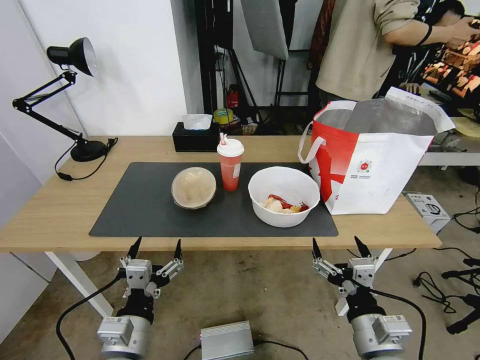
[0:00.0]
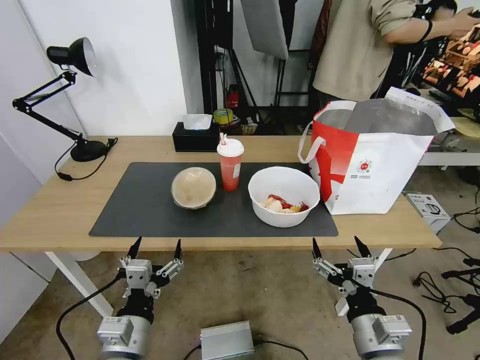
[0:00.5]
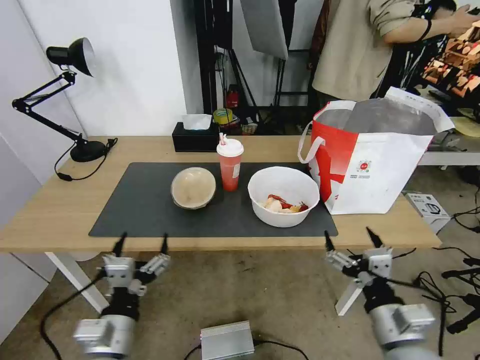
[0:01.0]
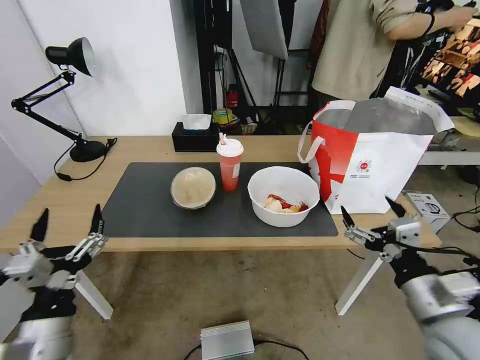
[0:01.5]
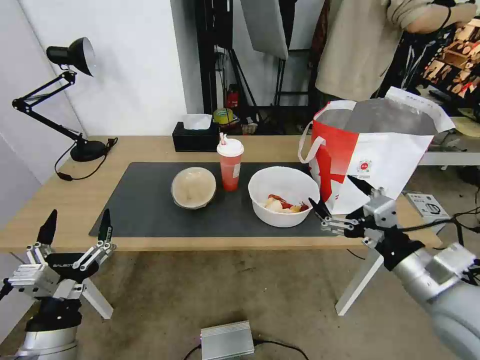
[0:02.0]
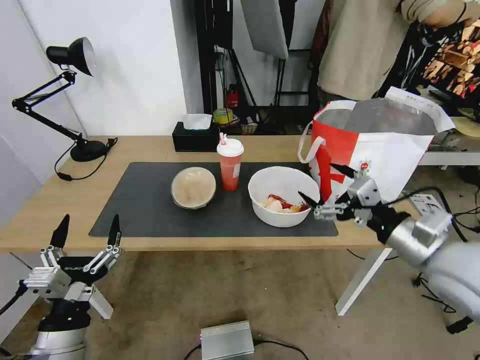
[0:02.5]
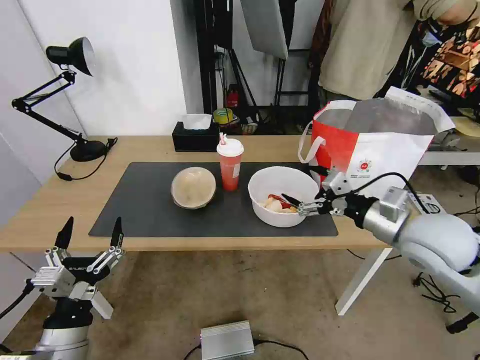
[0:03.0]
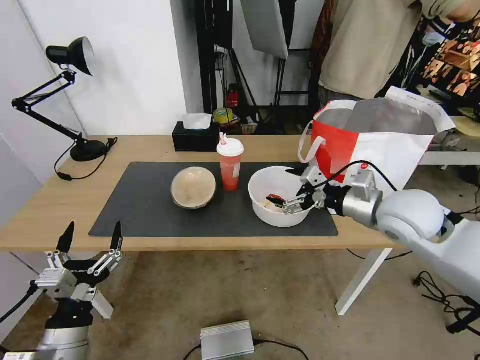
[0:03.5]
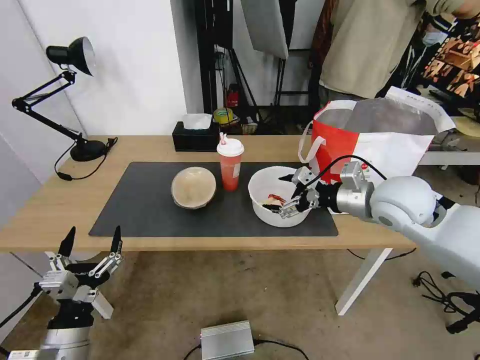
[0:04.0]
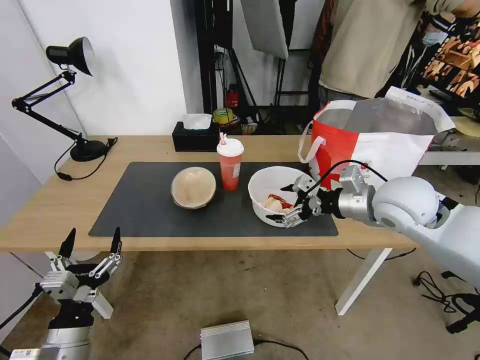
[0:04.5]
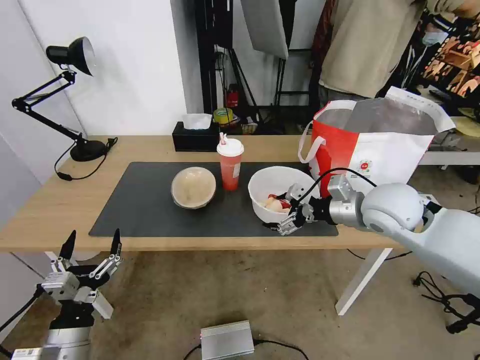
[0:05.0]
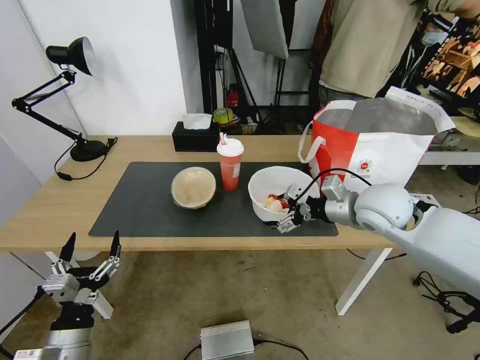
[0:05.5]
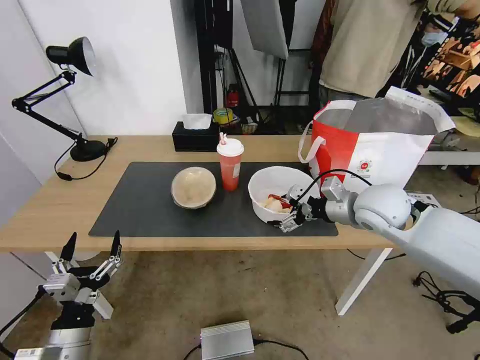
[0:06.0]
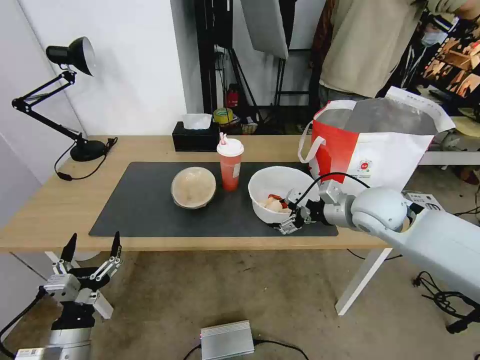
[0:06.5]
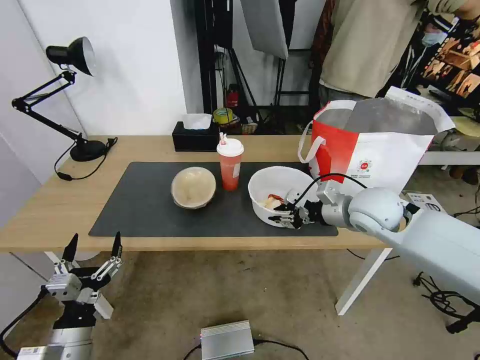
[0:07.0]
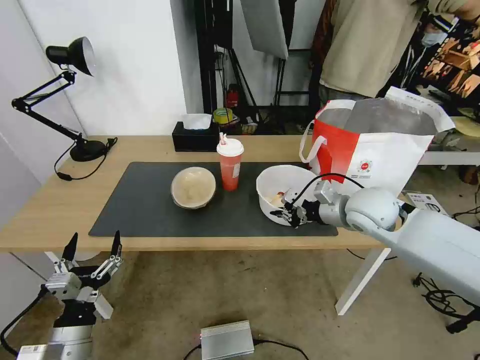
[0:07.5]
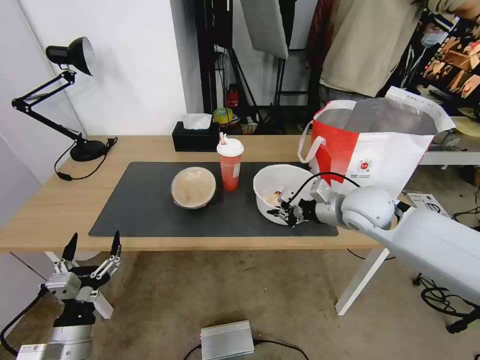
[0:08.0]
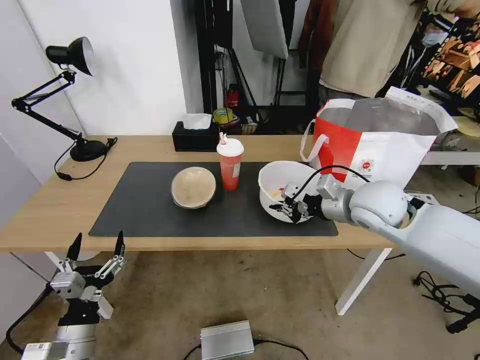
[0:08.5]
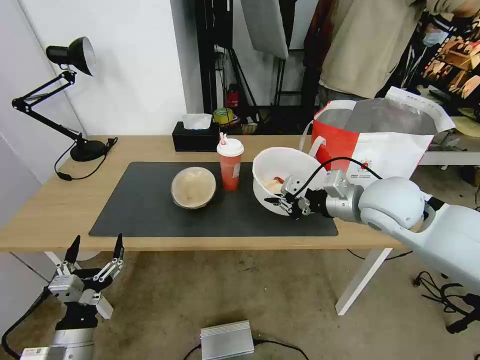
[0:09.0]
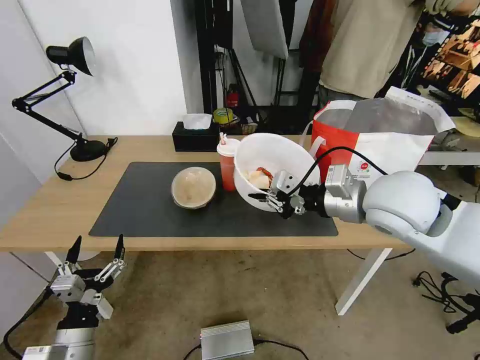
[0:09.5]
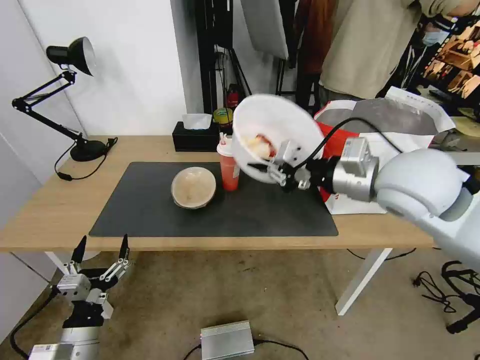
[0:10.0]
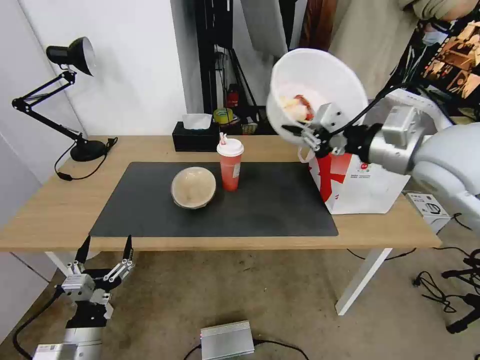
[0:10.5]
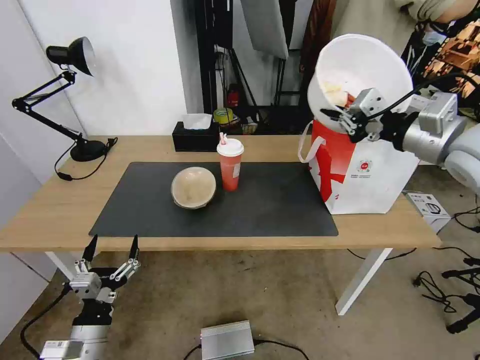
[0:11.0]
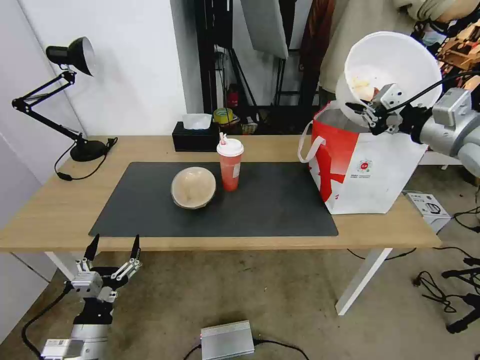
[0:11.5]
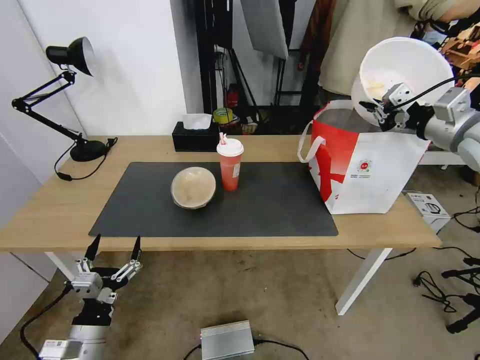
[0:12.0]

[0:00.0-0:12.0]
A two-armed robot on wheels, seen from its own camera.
Task of the whole recording: Pick up the trash from the table and place it into the takeout bag.
0:02.0 to 0:04.0: The right gripper goes some 20 cm forward, while the left gripper goes approximately 5 cm downward.
0:04.0 to 0:06.0: The grippers stay close to where they were, moving slightly.
0:06.0 to 0:08.0: The right gripper closes up.
0:08.0 to 0:10.0: The right gripper moves upward and backward, approximately 15 cm.
0:10.0 to 0:12.0: The right gripper travels to the right and forward by approximately 20 cm.

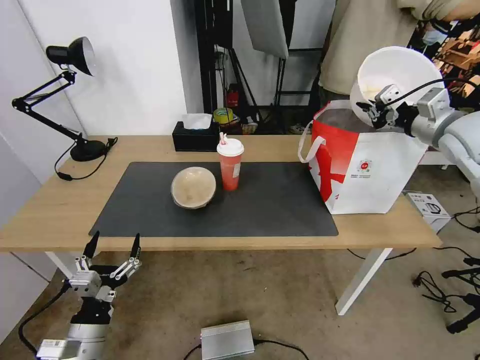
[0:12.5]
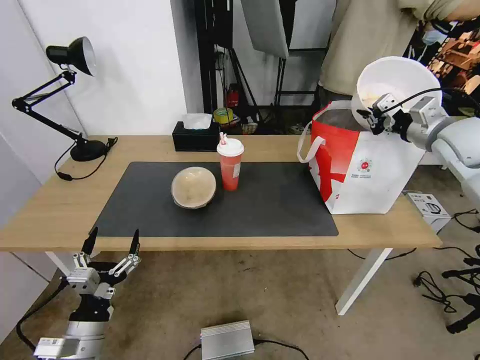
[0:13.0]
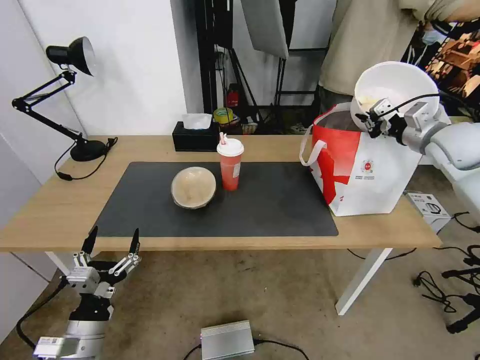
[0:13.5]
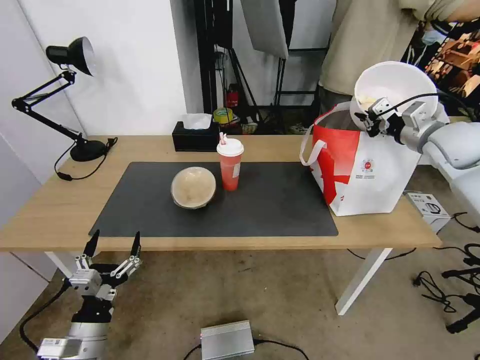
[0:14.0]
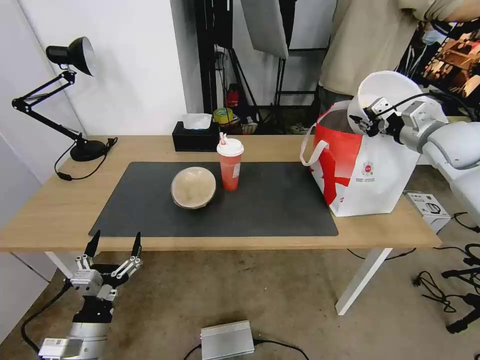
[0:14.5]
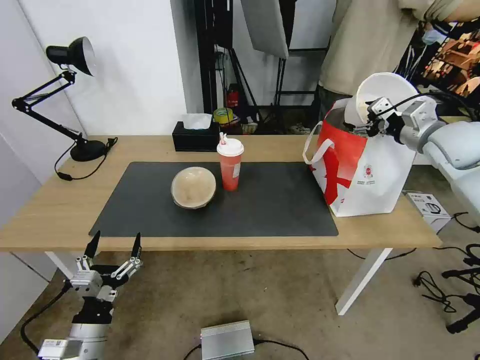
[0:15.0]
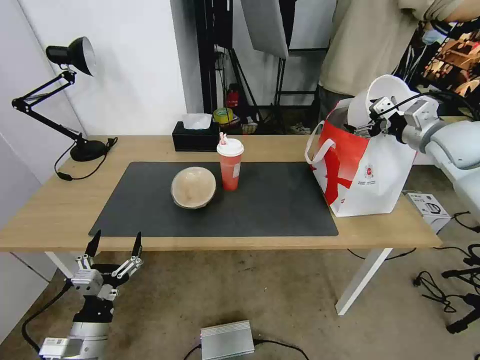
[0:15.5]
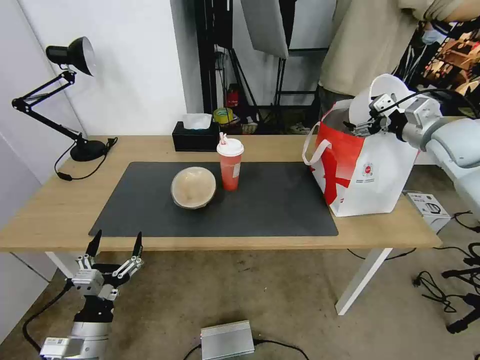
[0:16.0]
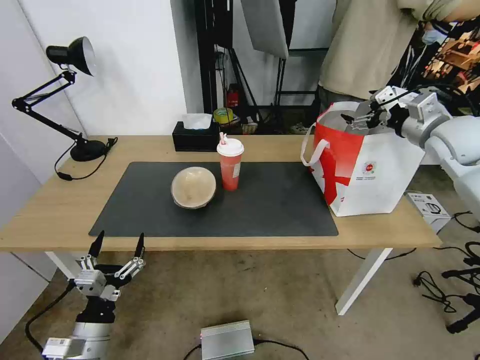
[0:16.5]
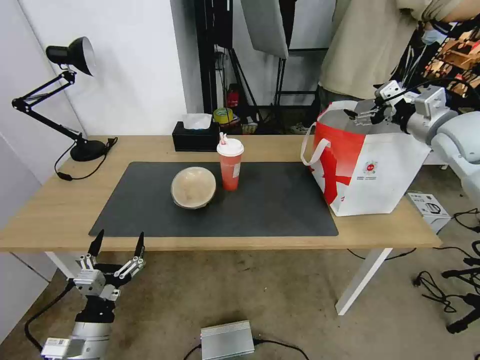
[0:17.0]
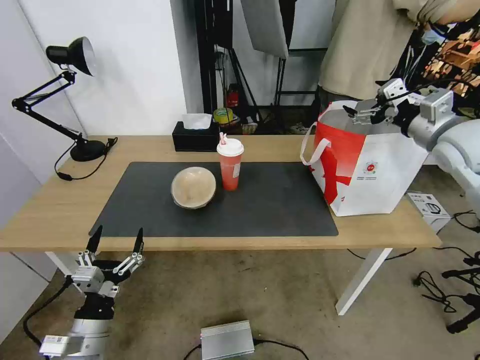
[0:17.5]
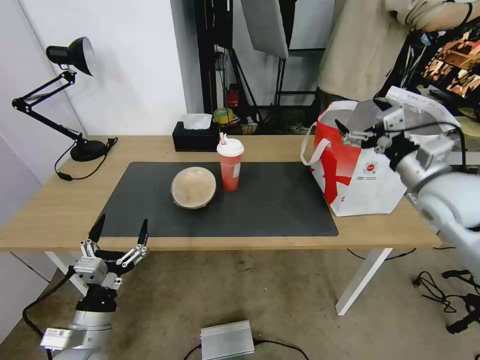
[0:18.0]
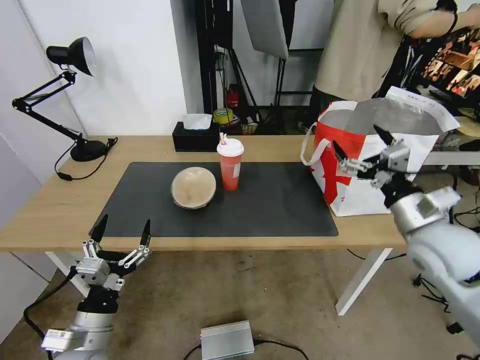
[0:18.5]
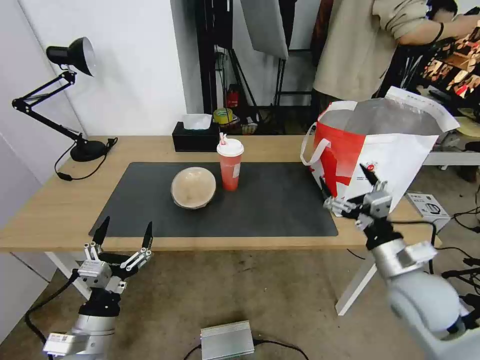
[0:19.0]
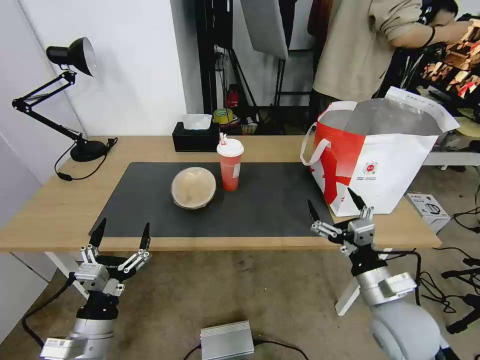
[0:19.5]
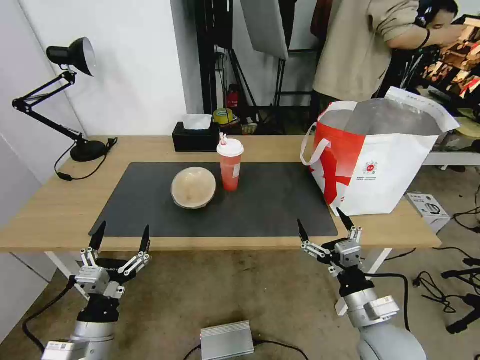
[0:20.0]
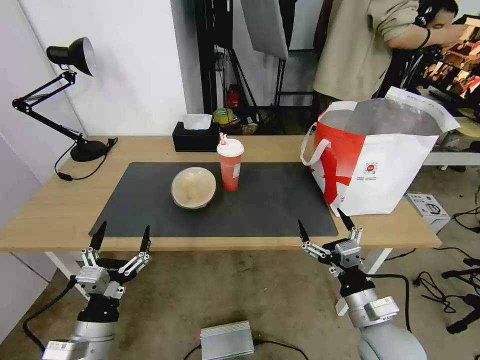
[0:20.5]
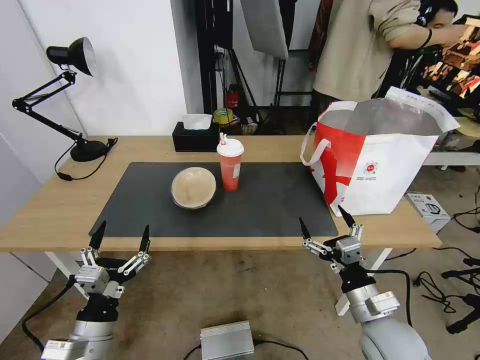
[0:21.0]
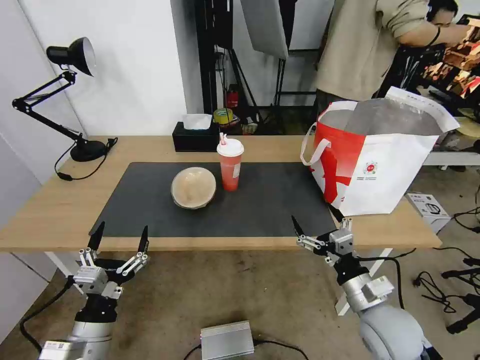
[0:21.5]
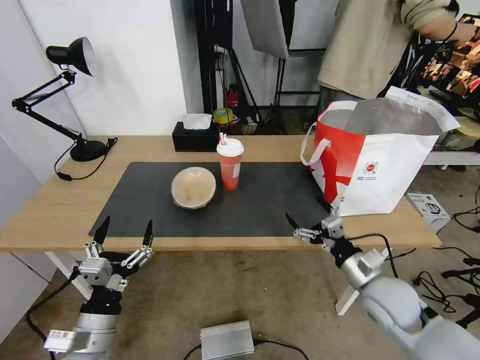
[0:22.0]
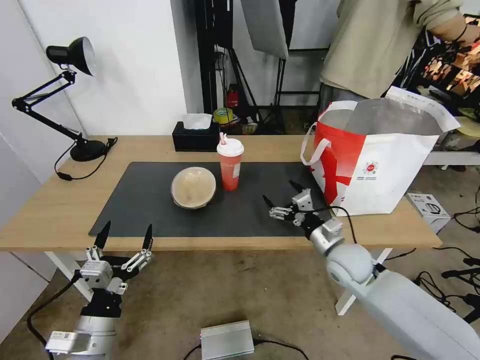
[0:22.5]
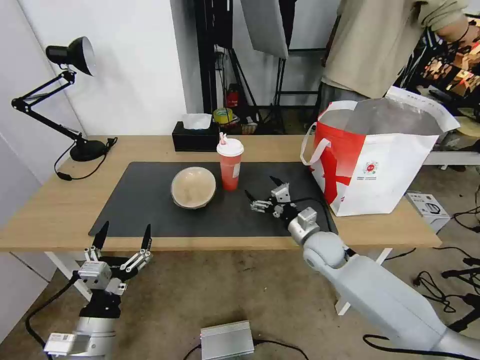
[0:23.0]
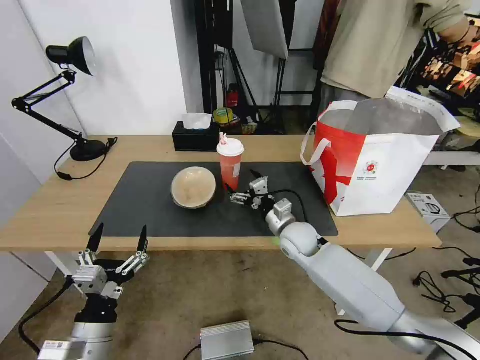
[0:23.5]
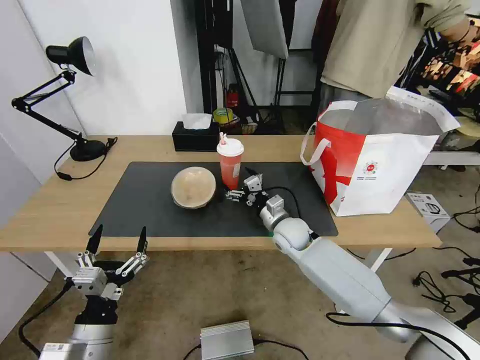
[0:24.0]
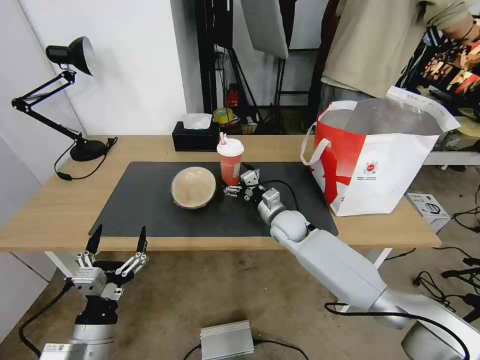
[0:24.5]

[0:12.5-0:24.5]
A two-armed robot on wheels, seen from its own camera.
Task of the whole recording: Pick up the trash from the table and place it into the takeout bag.
0:12.5 to 0:14.5: The grippers make only small movements.
0:14.5 to 0:16.5: The right gripper opens its fingers.
0:16.5 to 0:18.5: The right gripper heads backward, downward and to the left, covering some 20 cm.
0:18.5 to 0:20.5: The right gripper shifts approximately 20 cm downward, backward and to the left.
0:20.5 to 0:22.5: The right gripper travels forward by some 15 cm.
0:22.5 to 0:24.5: The right gripper goes some 15 cm to the left and forward.

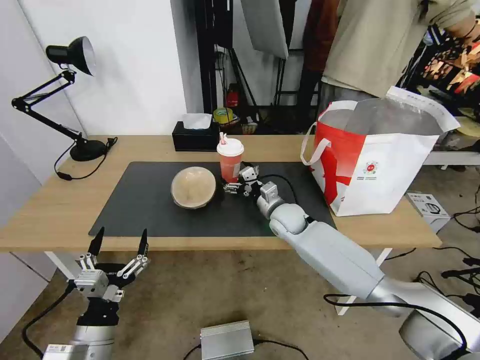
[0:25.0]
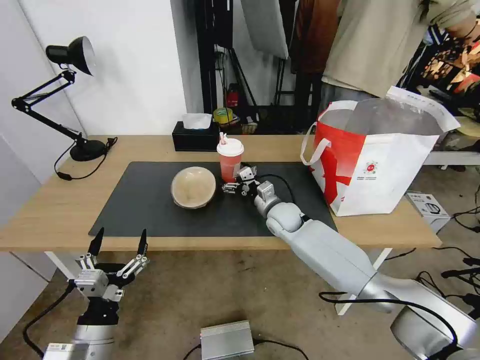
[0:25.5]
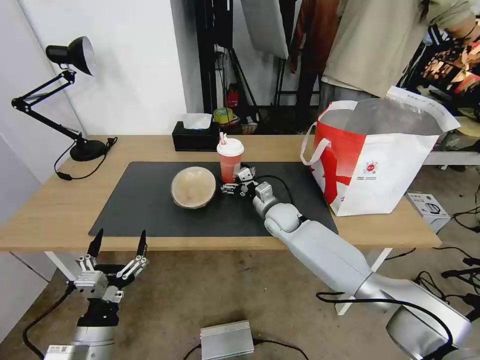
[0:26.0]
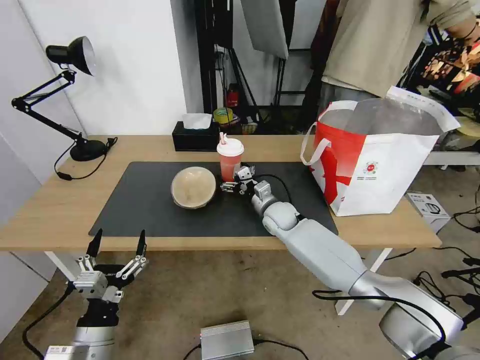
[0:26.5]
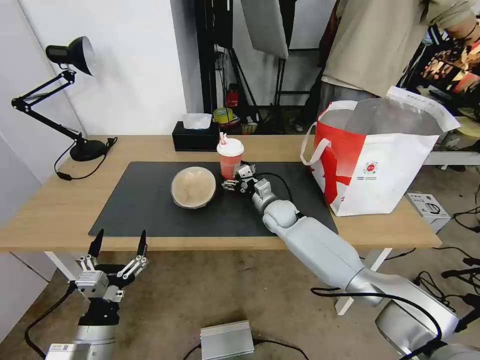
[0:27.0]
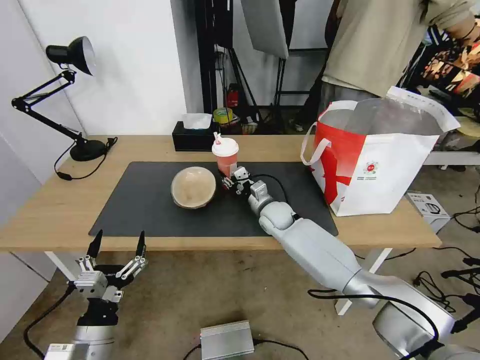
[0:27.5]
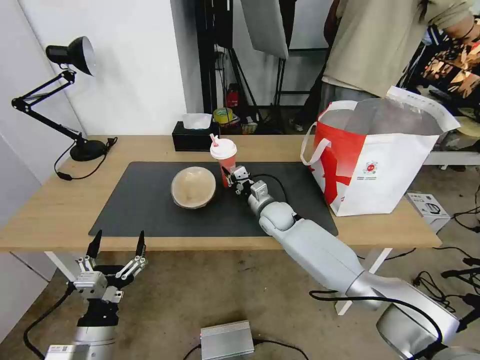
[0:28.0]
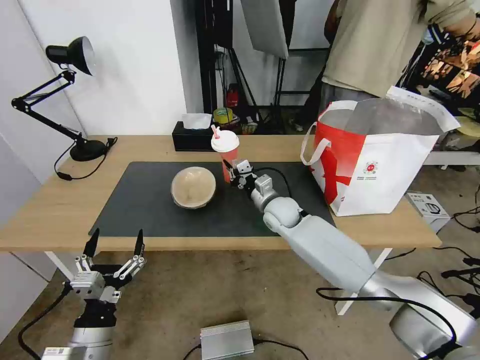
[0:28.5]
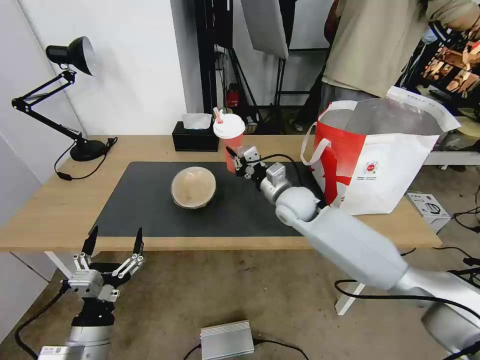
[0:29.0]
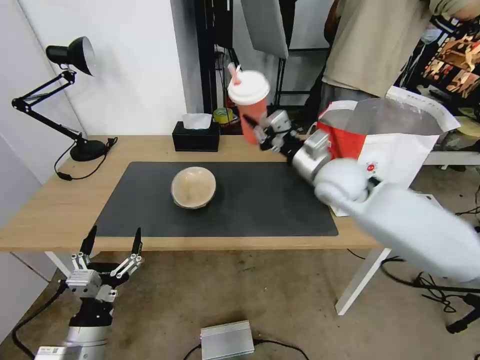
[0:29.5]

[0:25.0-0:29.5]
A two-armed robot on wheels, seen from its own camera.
Task of the whole recording: Pick up the trash from the table and place it into the takeout bag.
0:25.0 to 0:27.0: The grippers move only a little.
0:27.0 to 0:29.5: The right gripper goes roughly 20 cm upward and to the right, and closes its fingers.
